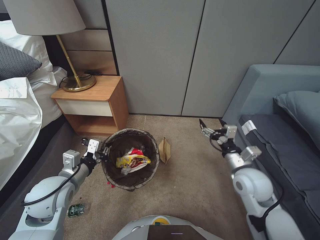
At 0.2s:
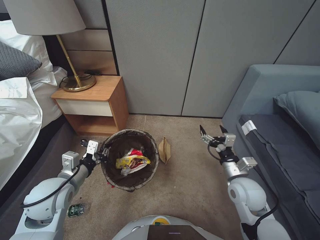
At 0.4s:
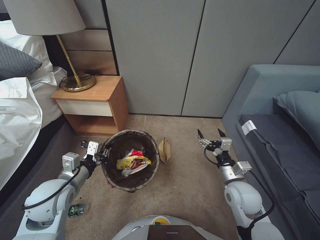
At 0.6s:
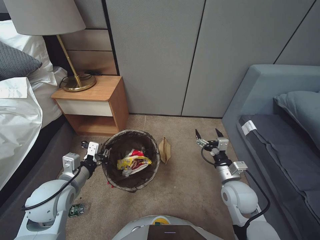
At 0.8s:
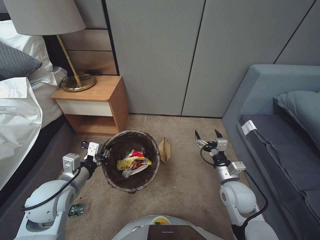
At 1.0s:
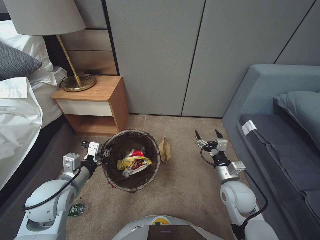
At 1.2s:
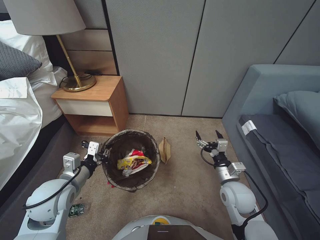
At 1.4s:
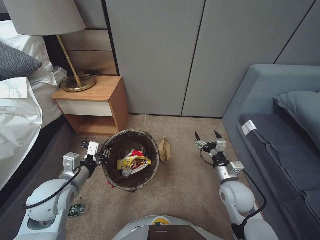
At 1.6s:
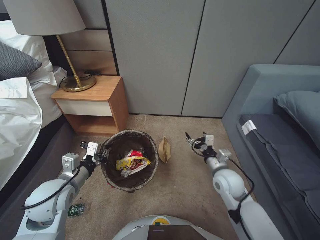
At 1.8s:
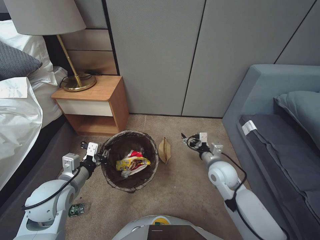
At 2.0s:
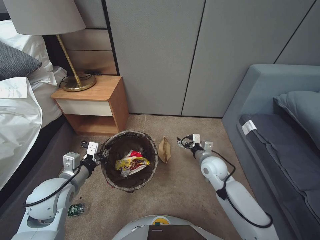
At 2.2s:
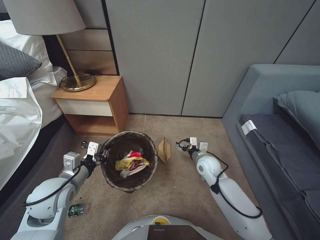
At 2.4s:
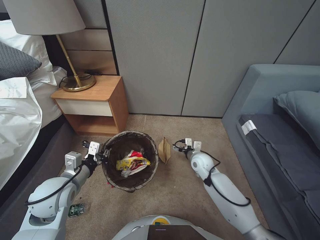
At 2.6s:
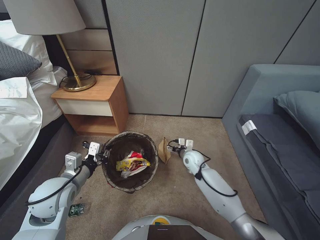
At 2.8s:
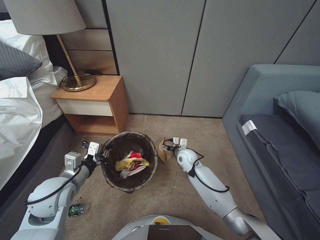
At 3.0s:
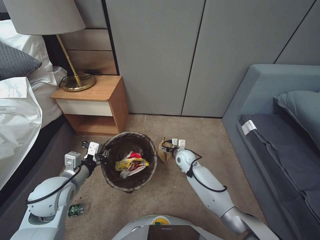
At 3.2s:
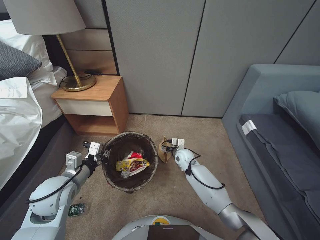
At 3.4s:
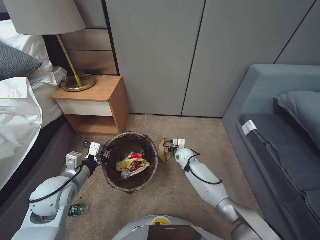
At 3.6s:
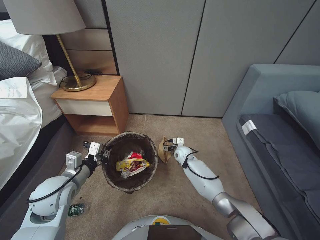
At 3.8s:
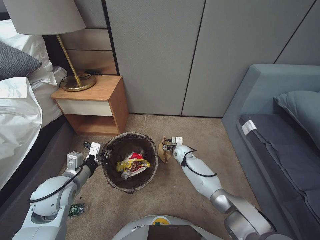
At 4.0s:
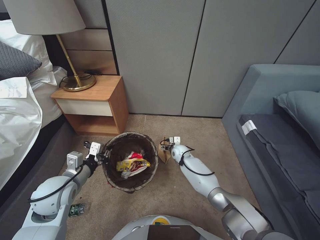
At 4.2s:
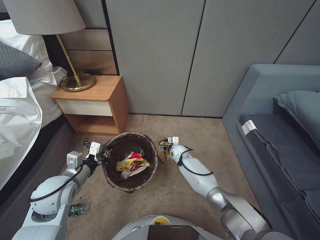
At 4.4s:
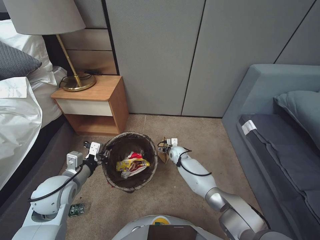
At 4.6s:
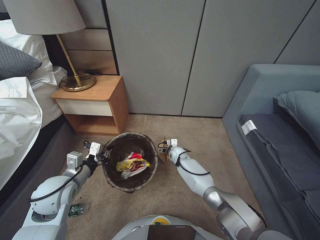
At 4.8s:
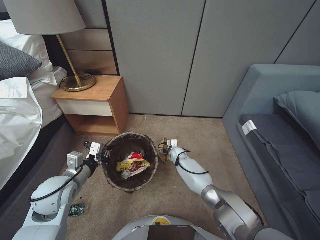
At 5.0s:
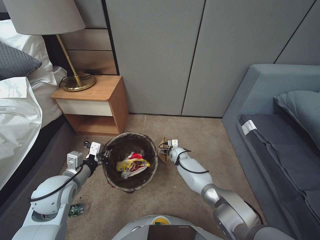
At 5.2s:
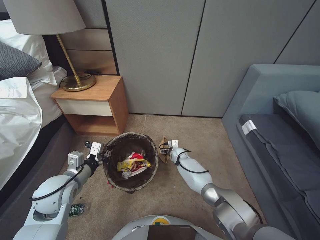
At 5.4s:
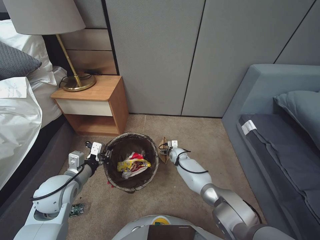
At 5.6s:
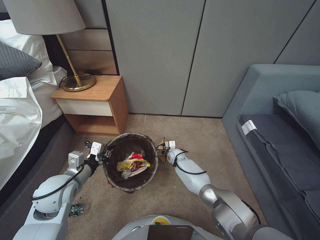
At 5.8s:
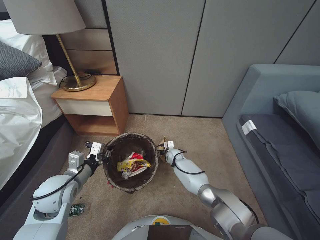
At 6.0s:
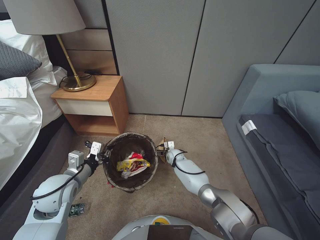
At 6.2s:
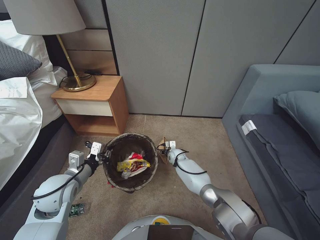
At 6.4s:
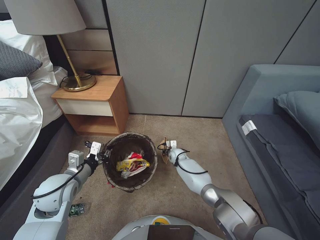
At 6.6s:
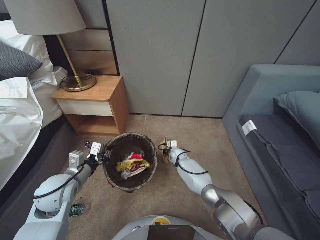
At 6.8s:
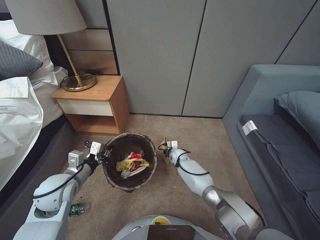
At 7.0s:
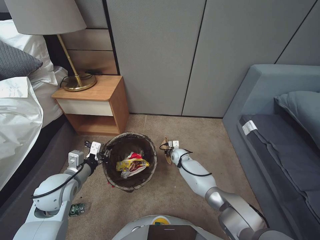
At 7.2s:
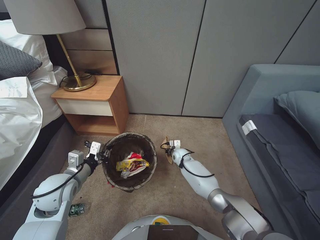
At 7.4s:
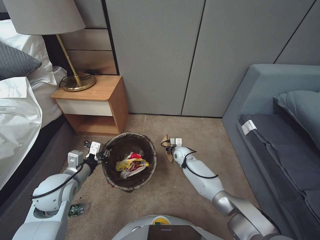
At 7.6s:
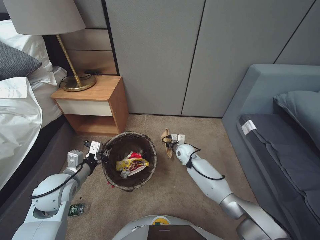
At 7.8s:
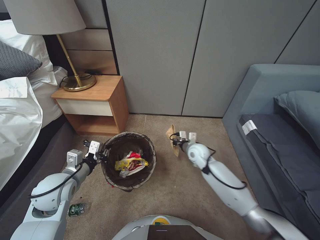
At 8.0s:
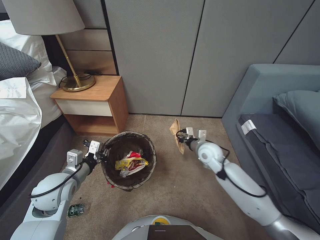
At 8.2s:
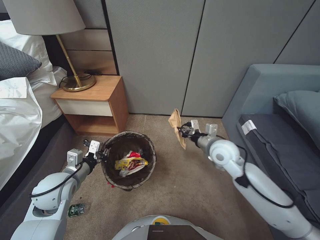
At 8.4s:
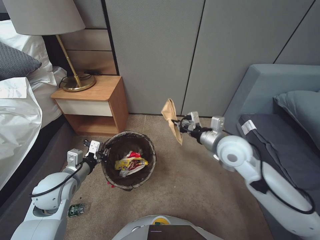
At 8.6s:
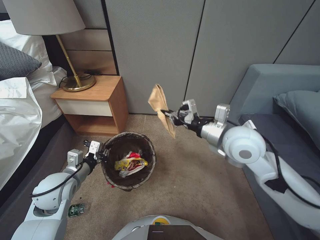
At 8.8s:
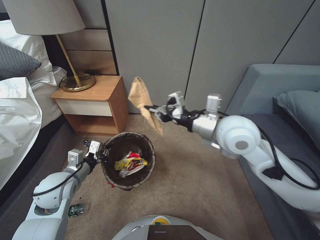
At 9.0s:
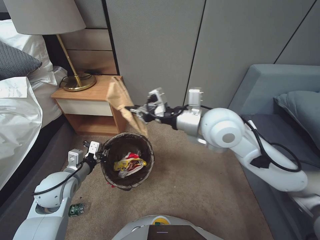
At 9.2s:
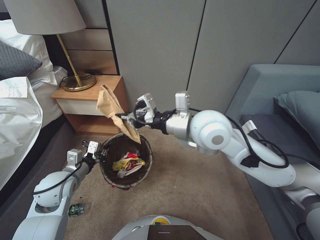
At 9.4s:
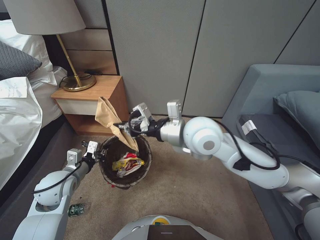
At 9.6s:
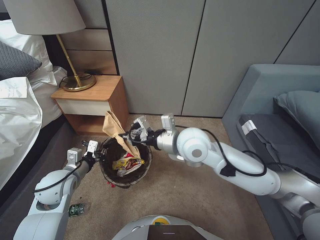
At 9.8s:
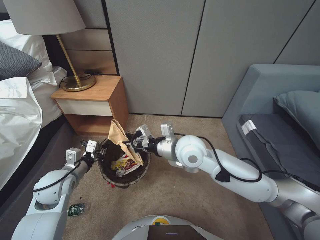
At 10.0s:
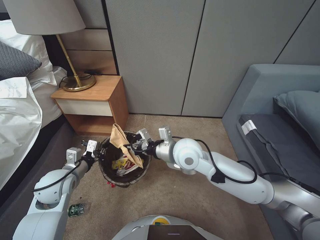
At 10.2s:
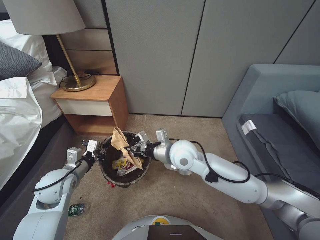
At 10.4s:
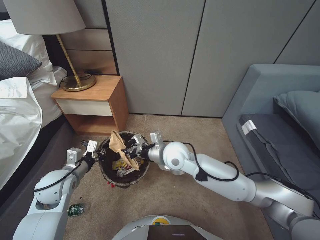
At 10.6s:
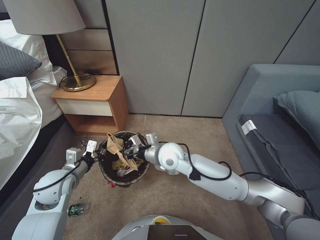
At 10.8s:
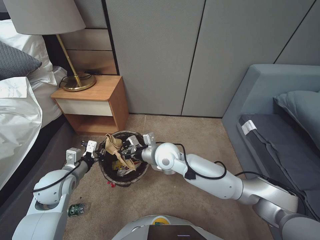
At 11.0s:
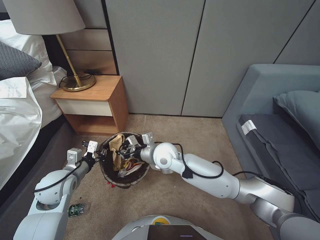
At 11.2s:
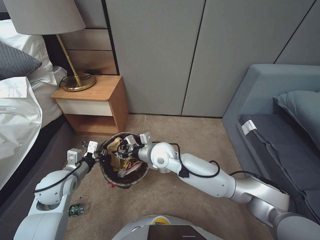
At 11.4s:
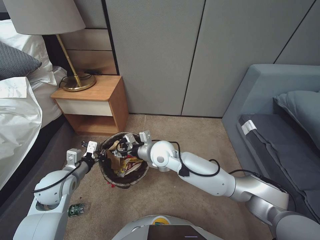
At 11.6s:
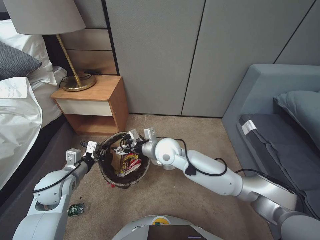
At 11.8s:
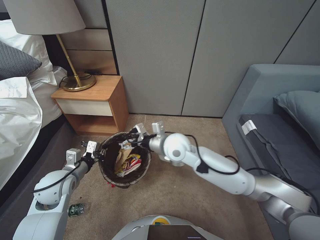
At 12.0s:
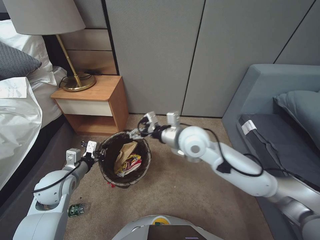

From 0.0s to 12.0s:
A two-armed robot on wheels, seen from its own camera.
Task of the whole recording: Pick up the trash bin, then pick up the garbage from the floor and place it into the trash bin.
From 0.0s to 1.6s: The right gripper travels downward by approximately 10 cm.
From 1.6s to 3.0s: The right gripper goes roughly 20 cm forward, to the left and downward.
From 3.0s to 4.4s: The right gripper moves forward and downward, some 10 cm.
From 4.4s to 6.0s: The grippers move only a little.
From 6.0s to 7.6s: The right gripper goes about 5 cm upward, and closes up.
From 7.6s to 9.0s: The right gripper shifts some 35 cm upward.
From 9.0s to 10.4s: The right gripper heads downward and to the left, covering roughly 20 cm.
From 10.4s to 12.0s: The right gripper is displaced upward by about 5 cm, and opens.

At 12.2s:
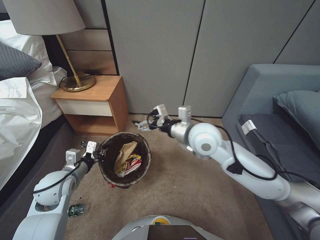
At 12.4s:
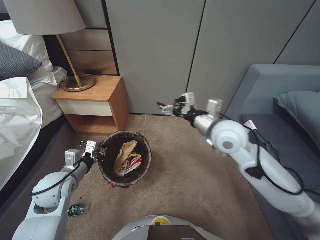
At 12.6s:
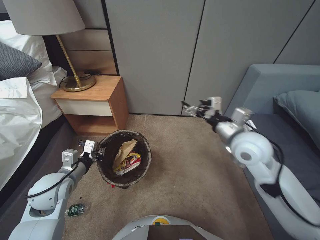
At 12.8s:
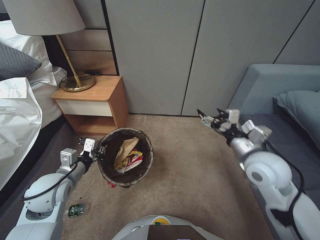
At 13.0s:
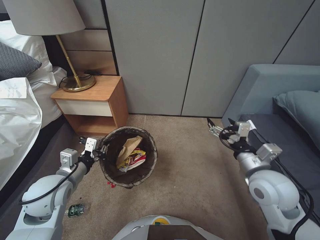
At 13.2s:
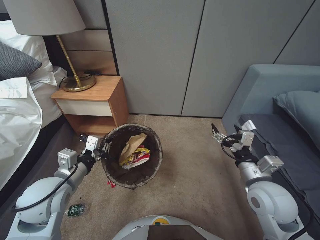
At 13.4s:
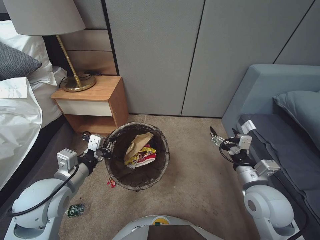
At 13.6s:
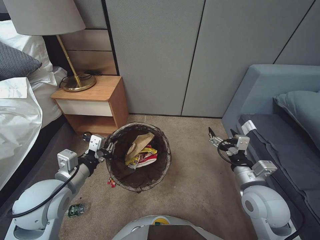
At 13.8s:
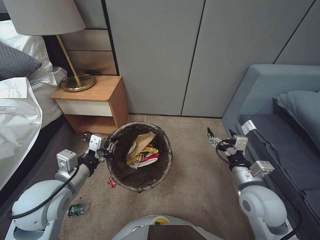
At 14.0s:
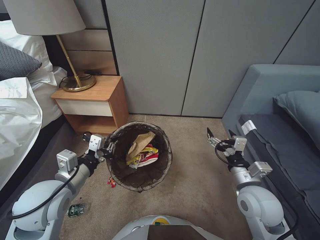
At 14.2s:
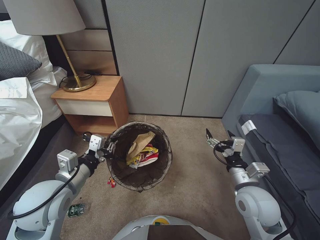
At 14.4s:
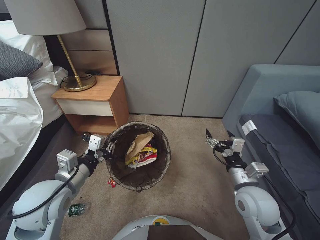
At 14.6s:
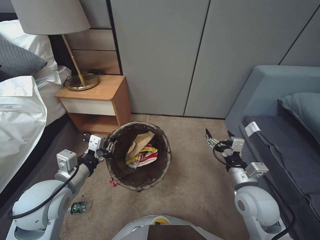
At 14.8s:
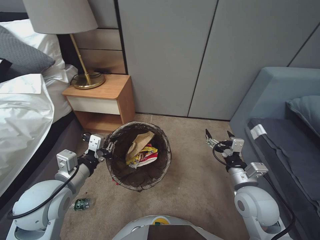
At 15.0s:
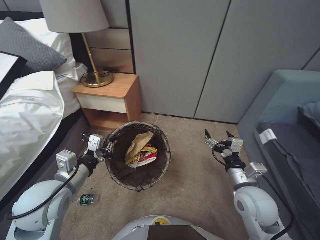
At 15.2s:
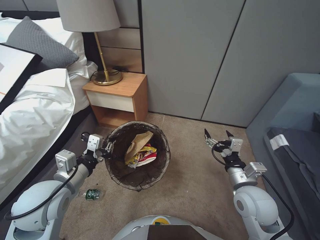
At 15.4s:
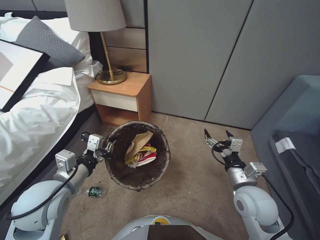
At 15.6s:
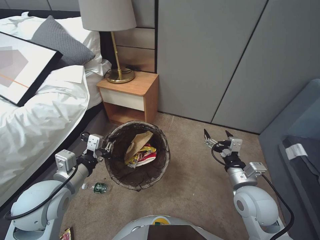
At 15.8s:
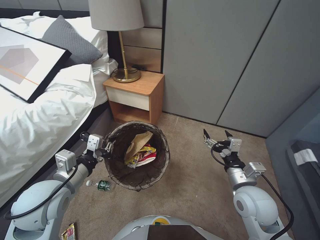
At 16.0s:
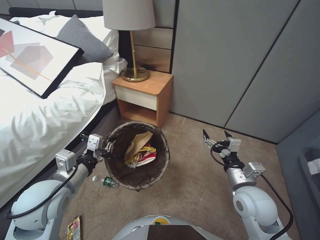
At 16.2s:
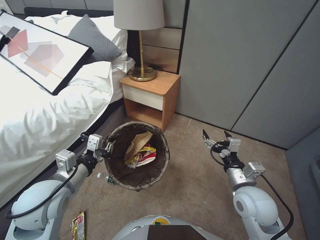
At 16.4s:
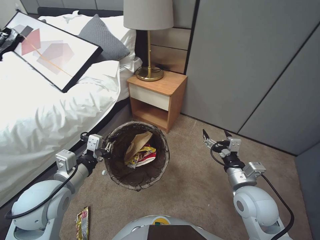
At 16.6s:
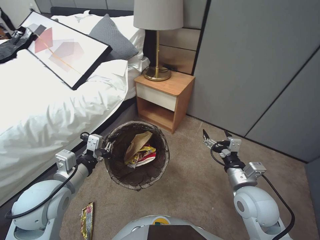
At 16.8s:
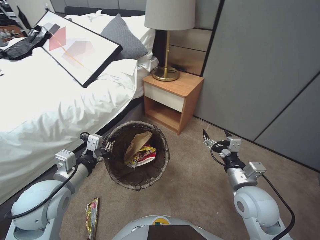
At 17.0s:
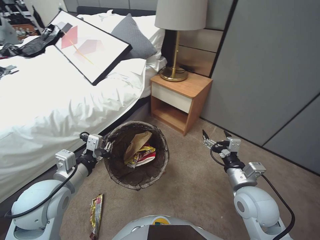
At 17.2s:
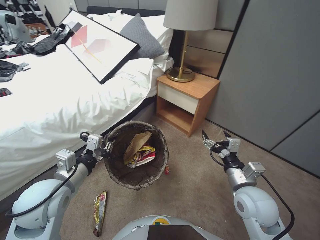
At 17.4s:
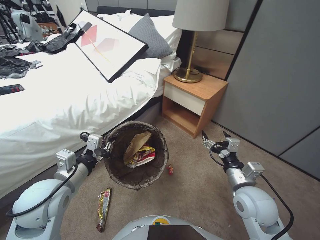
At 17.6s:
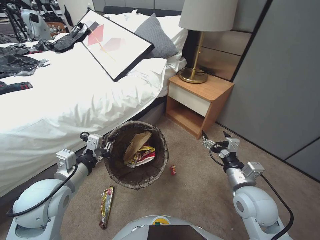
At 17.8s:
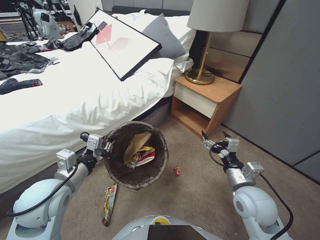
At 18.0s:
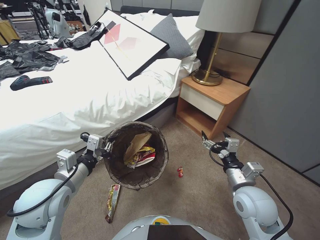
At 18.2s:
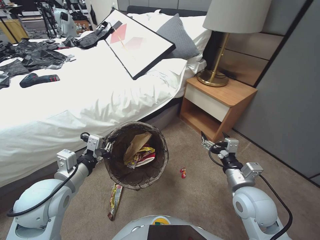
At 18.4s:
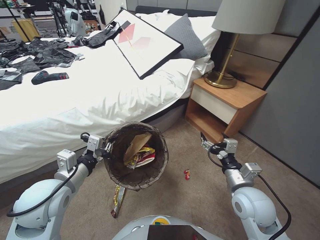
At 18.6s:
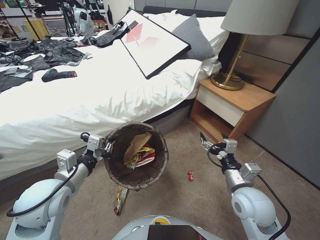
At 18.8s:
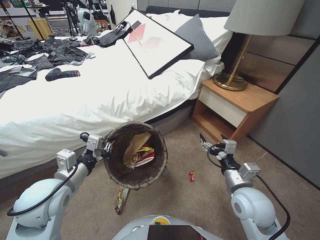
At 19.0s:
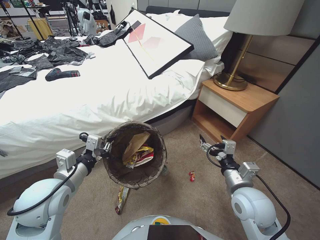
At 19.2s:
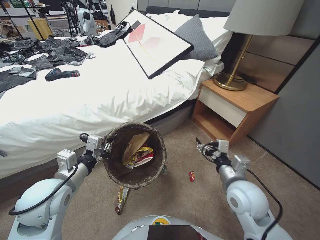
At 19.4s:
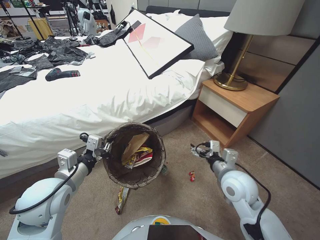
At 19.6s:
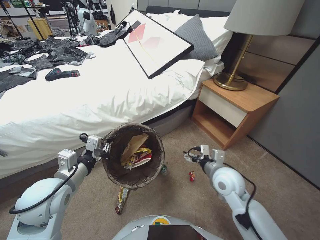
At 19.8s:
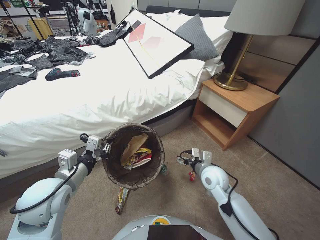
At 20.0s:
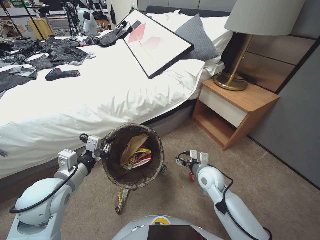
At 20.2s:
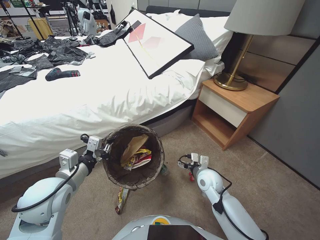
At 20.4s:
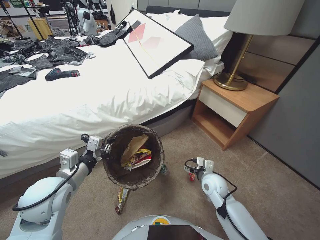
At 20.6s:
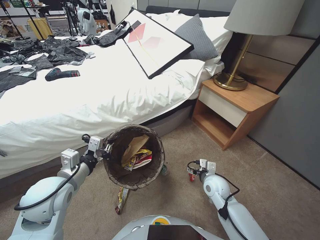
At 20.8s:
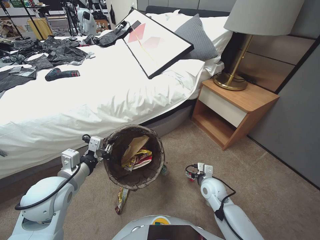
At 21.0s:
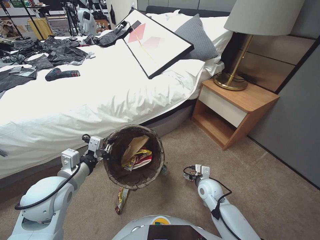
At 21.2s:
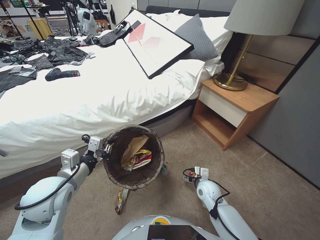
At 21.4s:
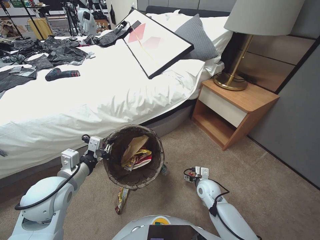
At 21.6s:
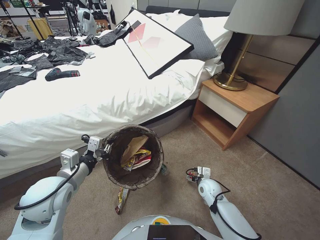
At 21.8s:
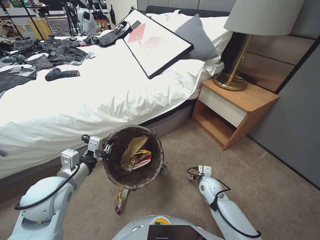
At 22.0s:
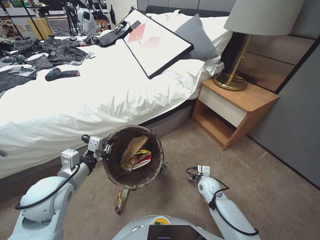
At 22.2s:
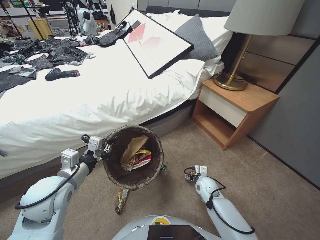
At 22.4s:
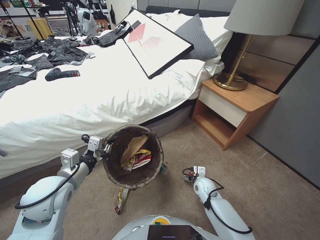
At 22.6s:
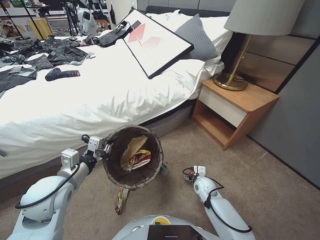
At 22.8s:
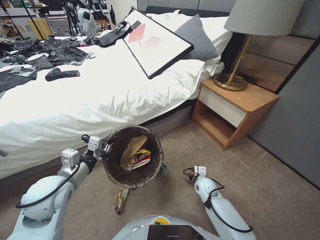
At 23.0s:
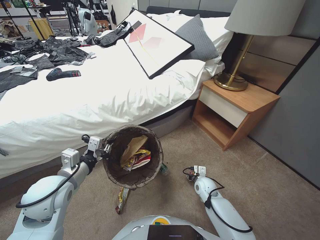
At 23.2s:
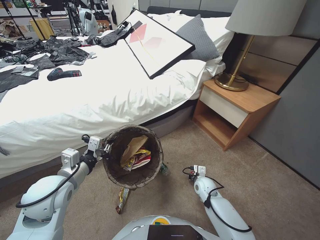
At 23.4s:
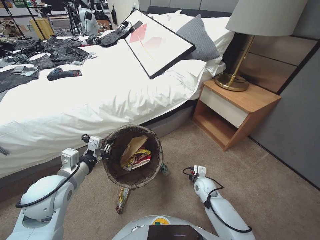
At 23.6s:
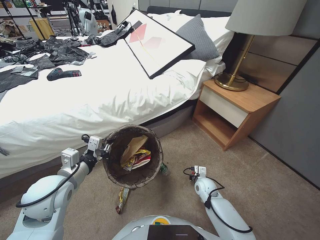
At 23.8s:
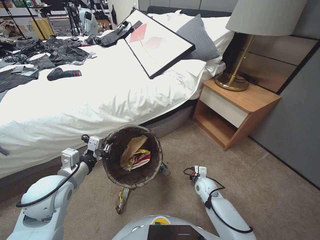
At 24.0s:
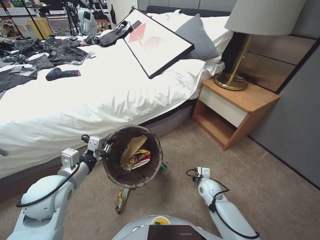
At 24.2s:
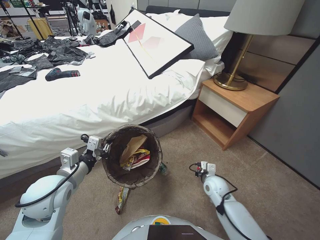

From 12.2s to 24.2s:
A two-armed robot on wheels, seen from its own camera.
Task of the whole recording: Pick up the trash bin, then pick up the garbage from the floor and place it into the trash bin.
From 12.2s to 13.8s: The left gripper moves upward, backward and to the right, about 10 cm; the right gripper travels to the right, backward and downward by about 25 cm.
From 18.2s to 19.8s: The right gripper goes some 10 cm forward and downward.
From 19.8s to 21.2s: The right gripper shifts about 15 cm downward.
From 21.2s to 22.6s: The right gripper shifts by about 5 cm.
From 22.6s to 24.2s: The right gripper shifts some 5 cm upward, and closes.
